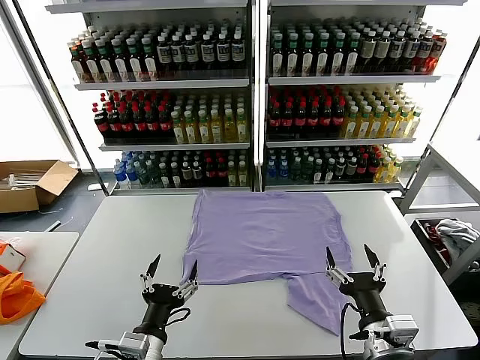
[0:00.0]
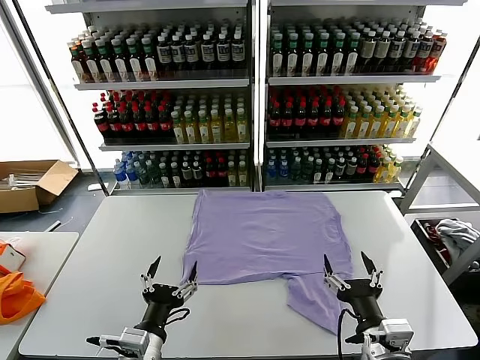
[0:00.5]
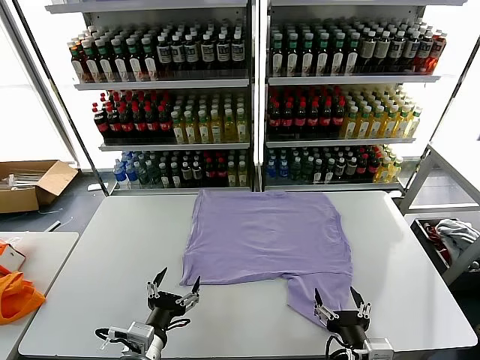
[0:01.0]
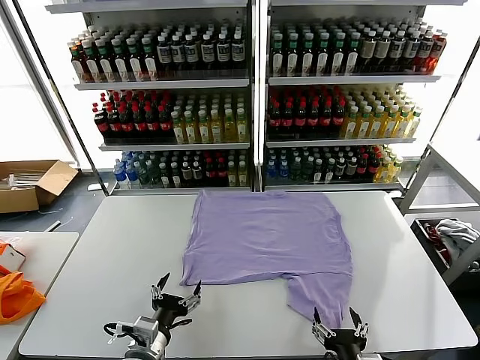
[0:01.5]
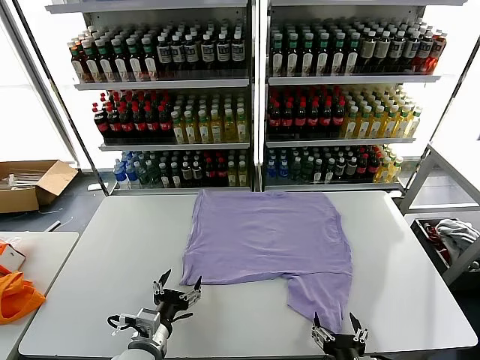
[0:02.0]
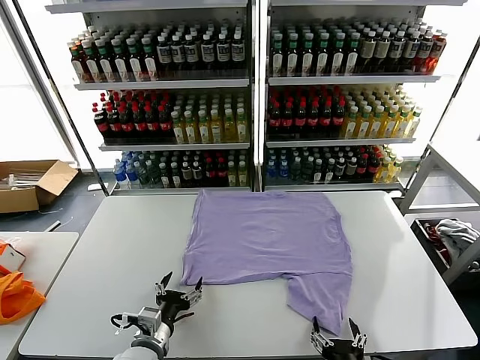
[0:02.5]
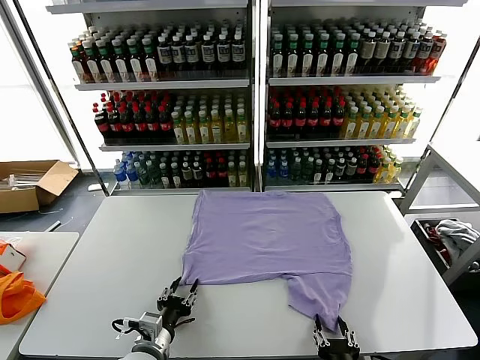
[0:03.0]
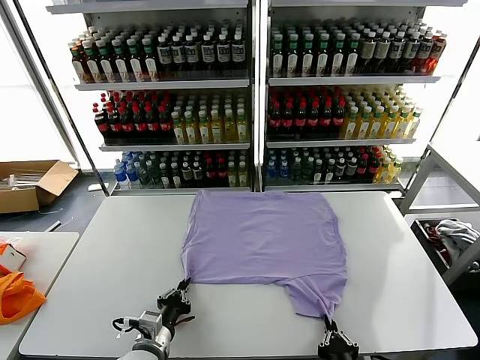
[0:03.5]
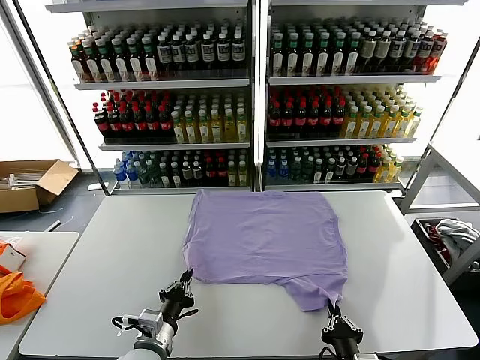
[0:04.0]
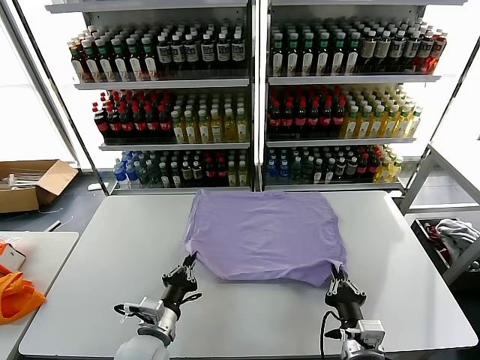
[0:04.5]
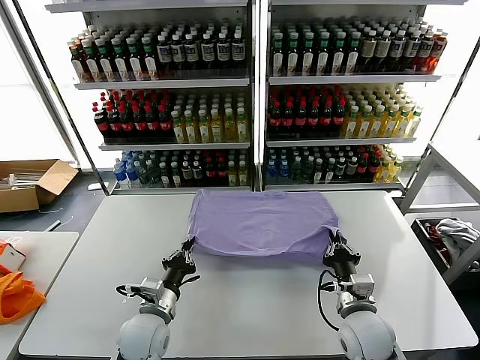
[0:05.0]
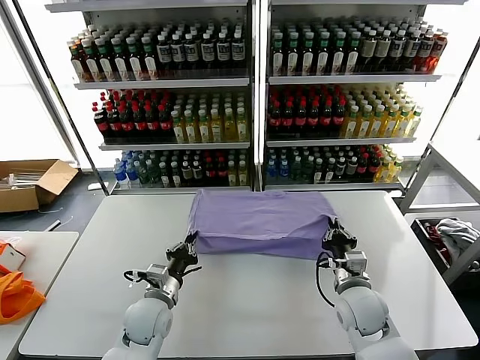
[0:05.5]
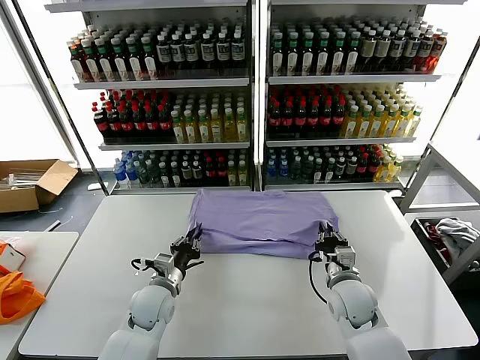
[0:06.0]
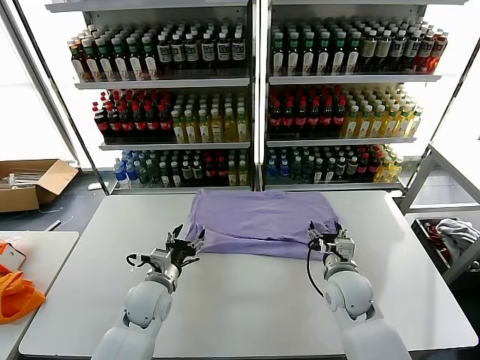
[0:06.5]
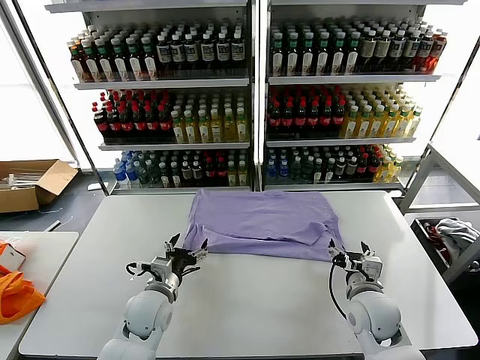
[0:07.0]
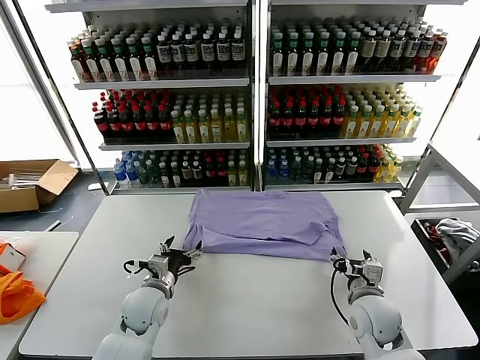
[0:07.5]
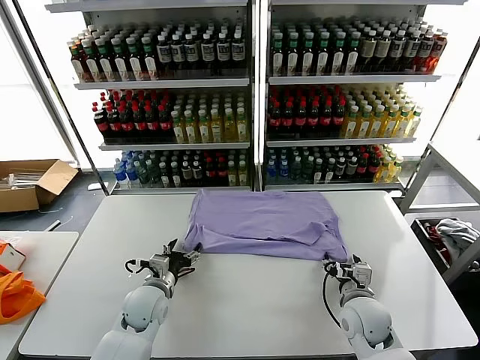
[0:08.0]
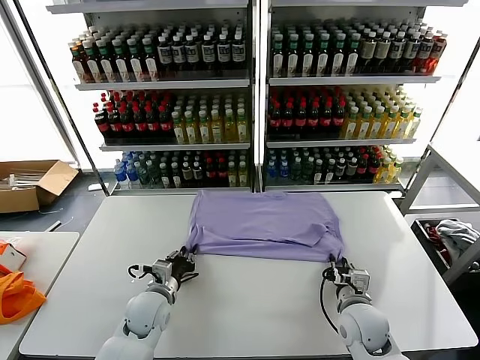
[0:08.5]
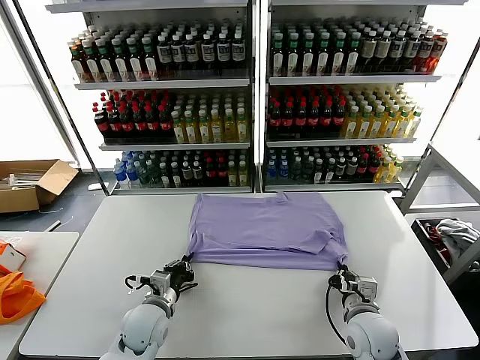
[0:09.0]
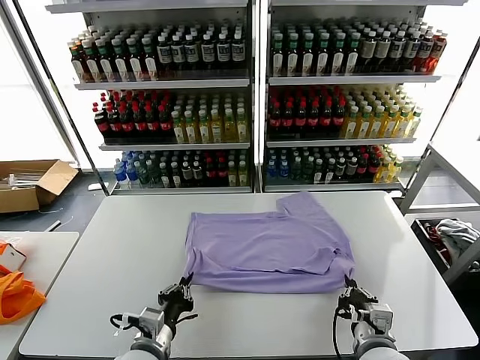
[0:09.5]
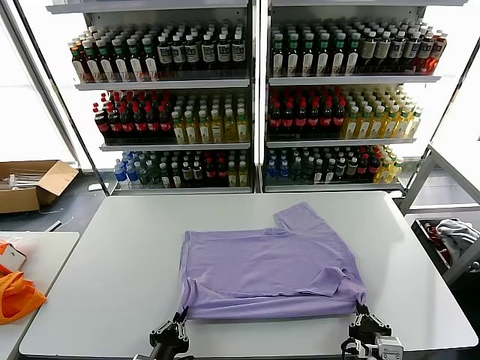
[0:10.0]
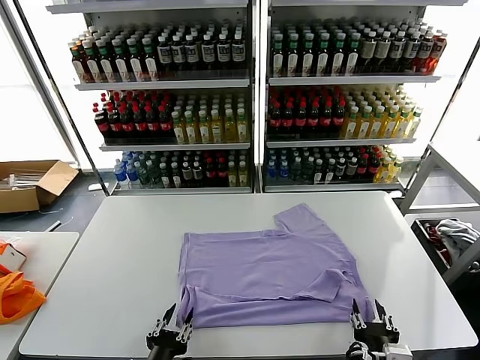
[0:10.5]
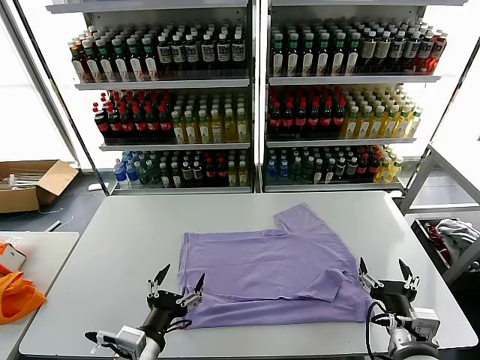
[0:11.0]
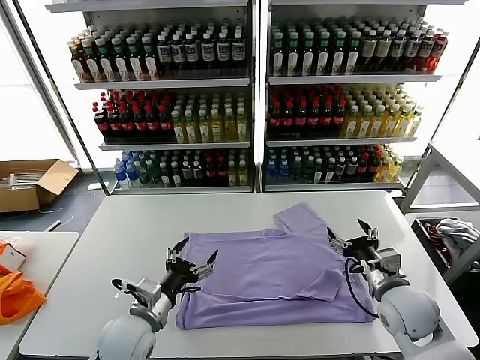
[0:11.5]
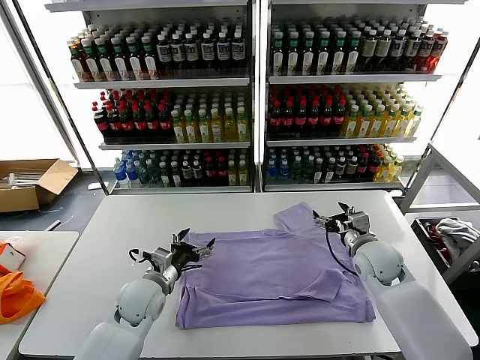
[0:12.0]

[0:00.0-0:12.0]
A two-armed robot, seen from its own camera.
Task of the whole recording: fold and organize the clothes.
Step, 0:00.0 to 0:03.5: use both grippers simultaneously to clamp the lower edge of the clothing fabric.
Step, 0:04.5 to 0:06.0: use both grippers to drag the lower edge of the fabric forward and fold it over the upper edge.
Step, 0:07.0 to 0:10.5: Drag the clothes downward with both gripper.
0:02.0 to 0:04.0: The left gripper closes up. The right gripper closes.
0:04.0 to 0:06.0: The right gripper shifts about 20 cm forward, while the left gripper heads forward, covering roughly 15 cm.
0:06.0 to 0:08.0: The right gripper moves approximately 5 cm, and opens its fingers. Meanwhile the left gripper opens its fingers.
0:08.0 to 0:10.0: Both grippers travel together backward, some 20 cm. The right gripper closes; the left gripper closes.
0:10.0 to 0:12.0: The two grippers go about 25 cm forward. The left gripper opens up, while the right gripper opens.

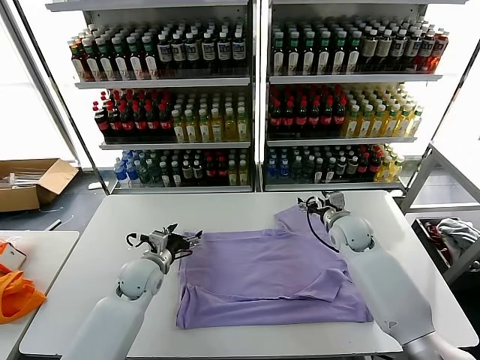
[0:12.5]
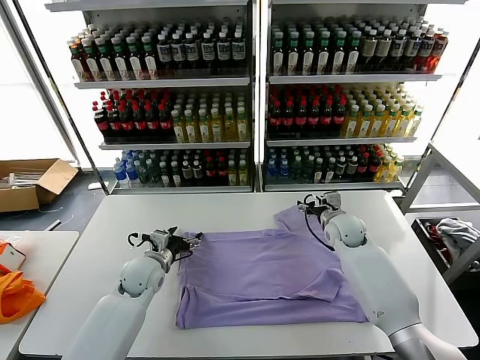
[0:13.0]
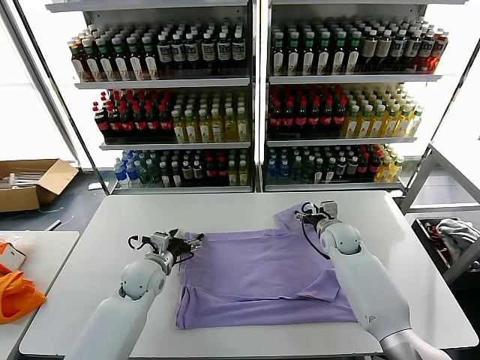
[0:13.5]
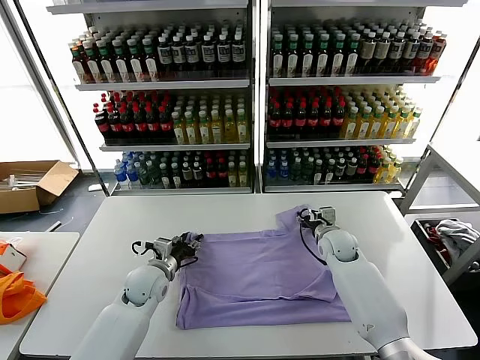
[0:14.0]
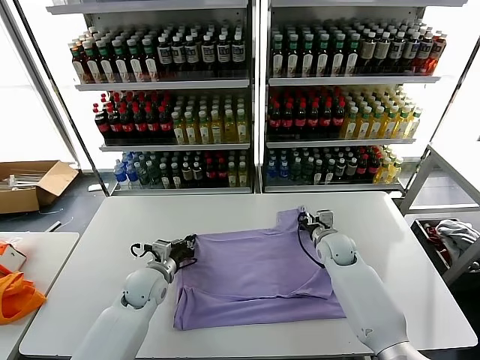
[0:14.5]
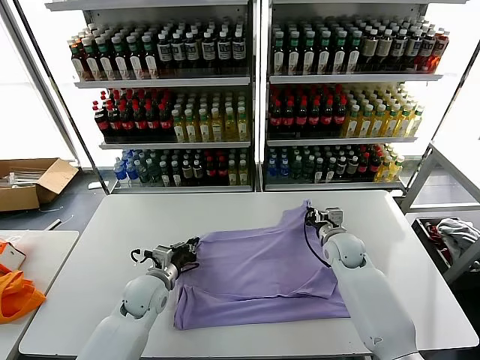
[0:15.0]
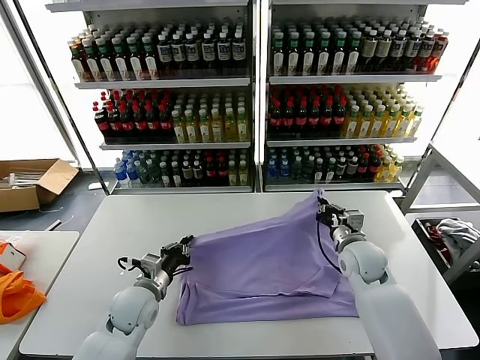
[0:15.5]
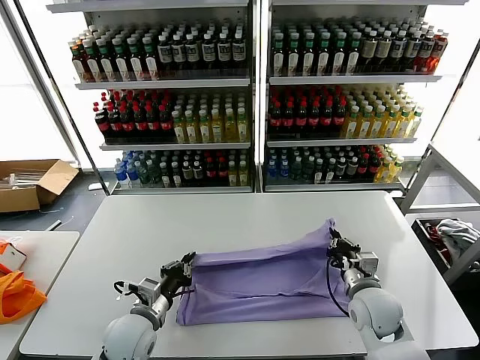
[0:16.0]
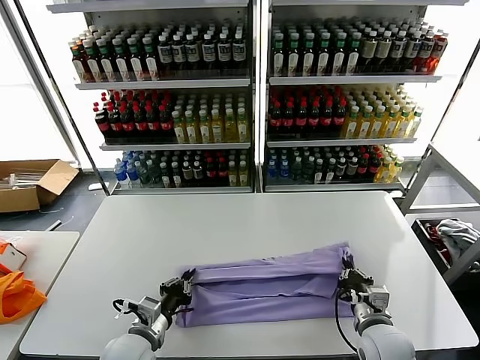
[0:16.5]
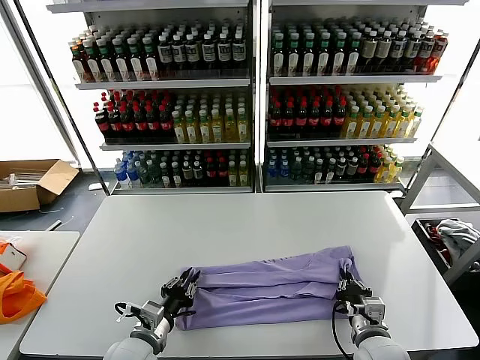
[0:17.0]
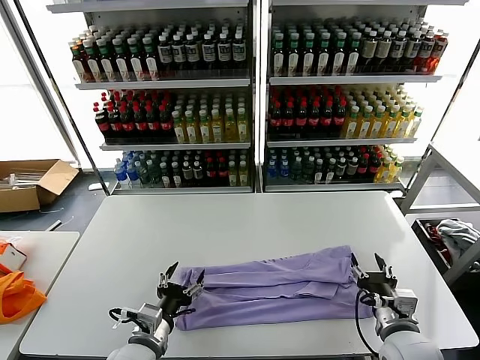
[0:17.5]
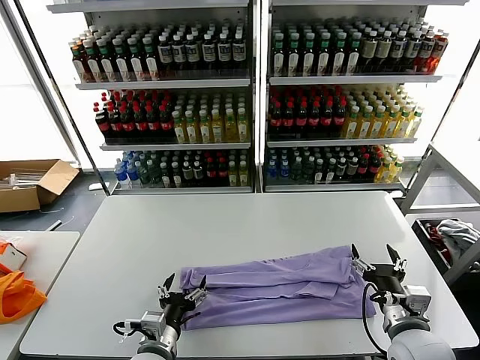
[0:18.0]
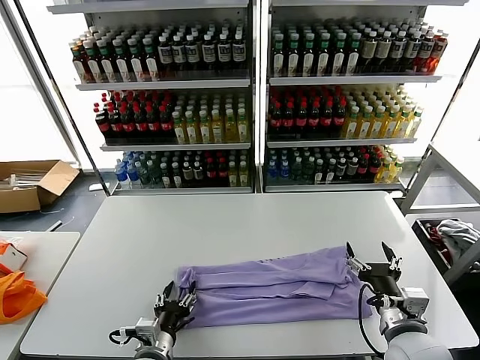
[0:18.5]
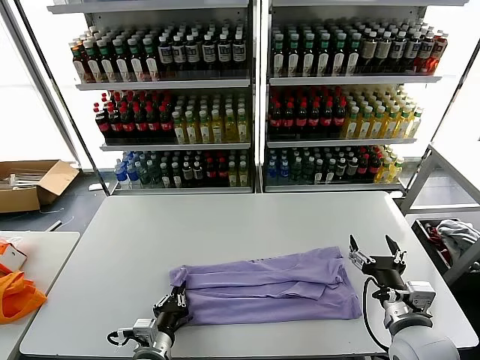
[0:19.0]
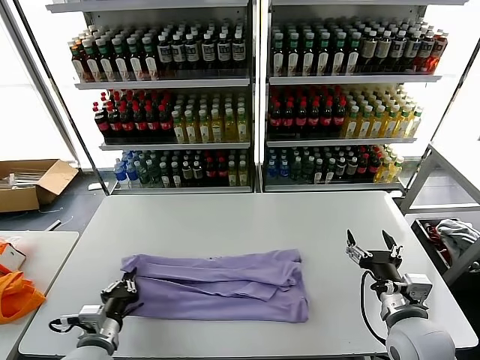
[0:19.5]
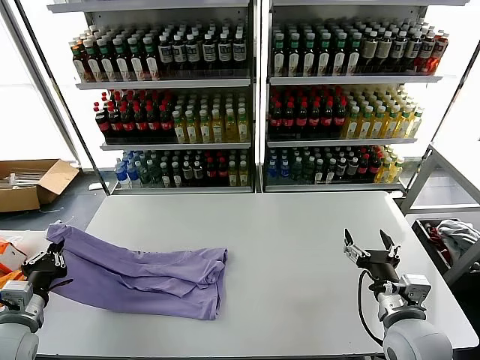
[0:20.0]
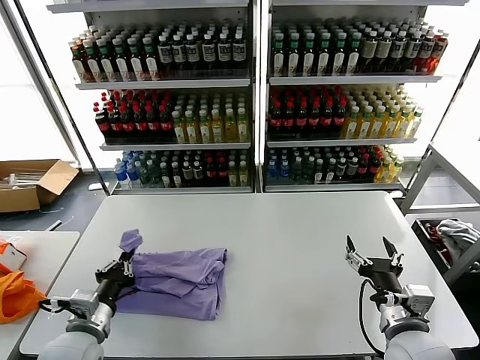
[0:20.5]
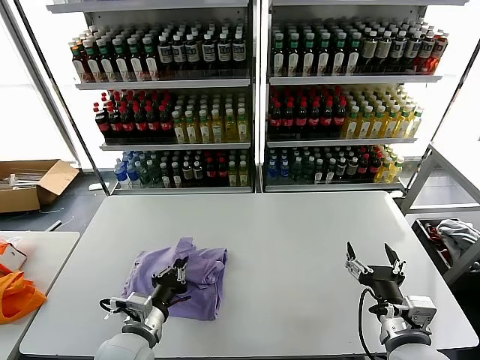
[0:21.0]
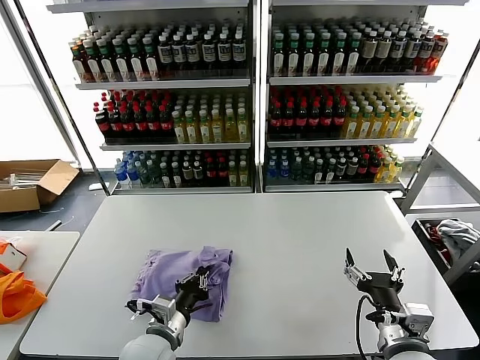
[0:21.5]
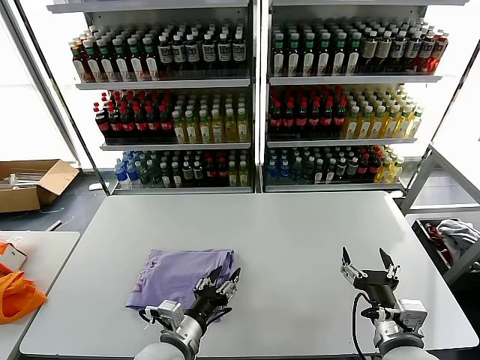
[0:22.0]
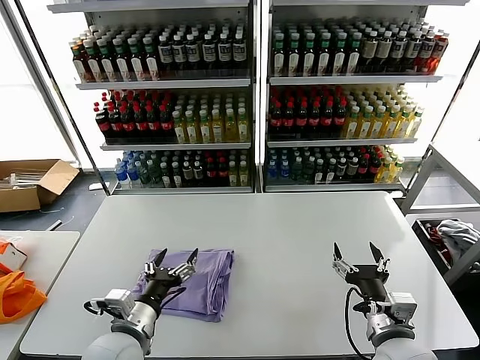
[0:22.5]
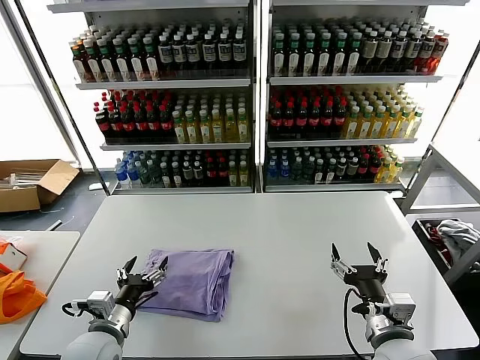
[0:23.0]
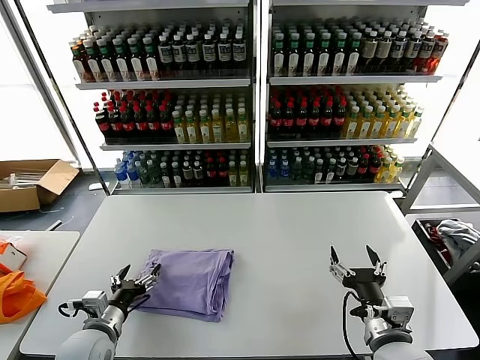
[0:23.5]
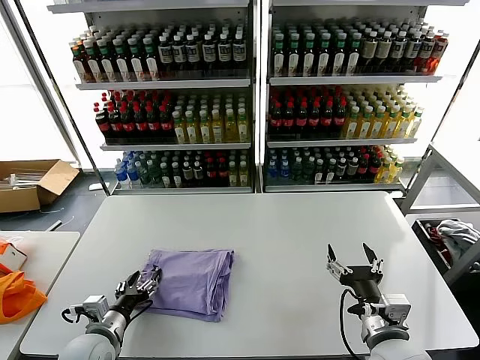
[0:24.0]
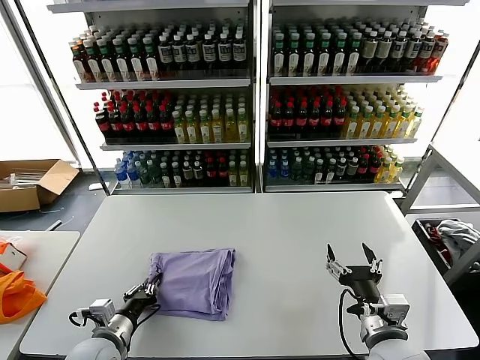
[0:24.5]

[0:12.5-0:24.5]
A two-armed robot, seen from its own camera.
Task of the whole recording: fold and organize the clothes.
Step, 0:12.5 to 0:14.5: use both grippers simultaneously to clamp the upper edge of the clothing fabric.
Step, 0:15.0 to 0:17.0: use both grippers to drag the upper edge of the fabric backward and fold it over the lower edge.
Step, 0:17.5 to 0:19.0: use the left gripper to clamp the left edge of the fabric.
Step, 0:19.5 to 0:22.0: use the left gripper to drag the left edge of the fabric to the left and folds it over the right edge.
0:12.5 to 0:14.5: The right gripper is displaced downward by roughly 5 cm, and closes up. Meanwhile the left gripper closes.
0:14.5 to 0:16.5: The left gripper is displaced backward by roughly 15 cm. Meanwhile the right gripper goes roughly 25 cm backward.
0:16.5 to 0:18.5: The left gripper ends up roughly 5 cm from where it was, and opens its fingers; the right gripper shifts roughly 5 cm upward, and opens up.
0:18.5 to 0:20.5: The left gripper shifts some 15 cm to the left and upward, and closes.
0:20.5 to 0:22.5: The left gripper is displaced to the right by about 10 cm, and opens.
0:22.5 to 0:24.5: The left gripper moves to the left and downward, some 10 cm, and closes up.

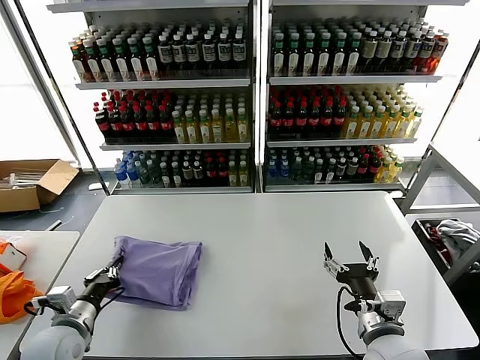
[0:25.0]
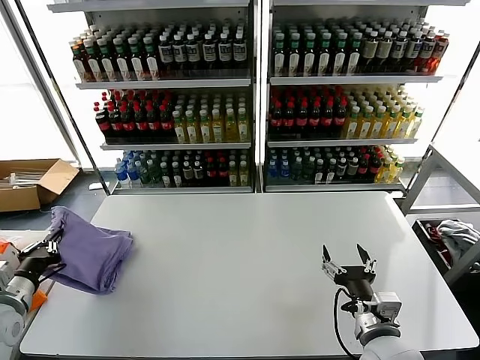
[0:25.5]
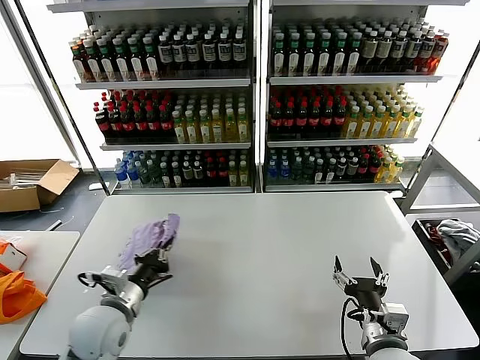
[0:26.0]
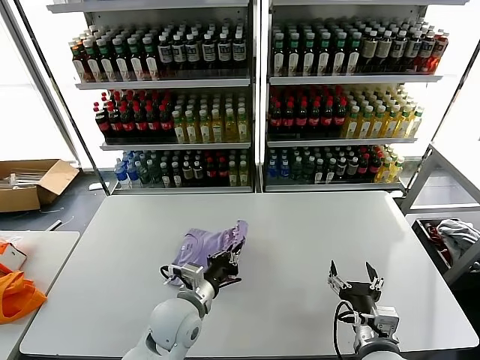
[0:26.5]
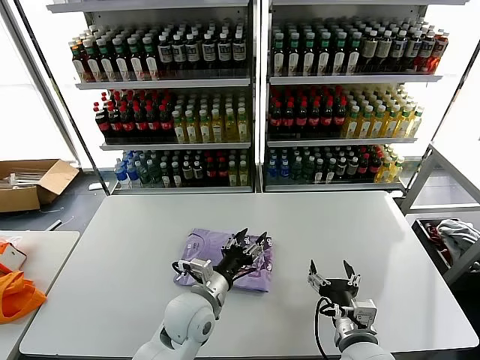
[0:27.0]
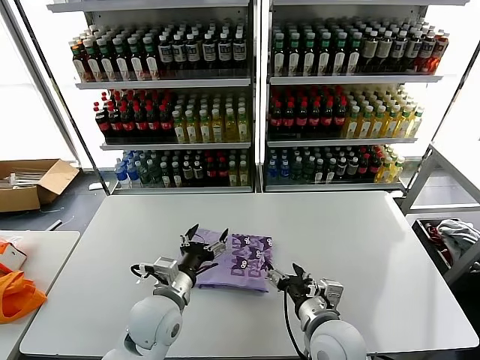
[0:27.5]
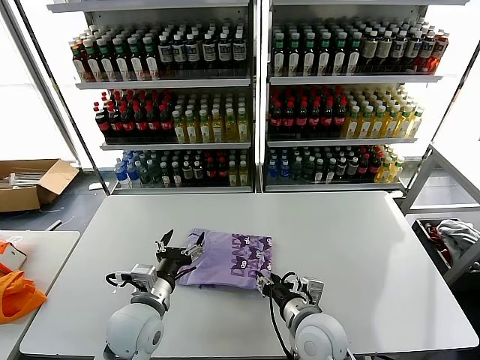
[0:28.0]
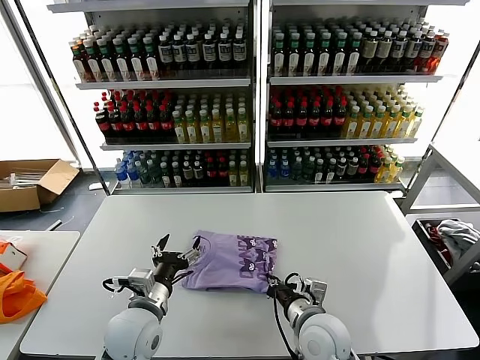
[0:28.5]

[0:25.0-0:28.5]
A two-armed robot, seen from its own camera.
Task of the whole recording: fold and organize the clothes.
0:25.0 to 0:27.0: The left gripper shifts roughly 25 cm to the right, and opens its fingers.
0:27.0 to 0:28.5: The left gripper heads to the left, covering about 10 cm, and opens, while the right gripper is displaced to the left and forward by approximately 10 cm, and closes up.
